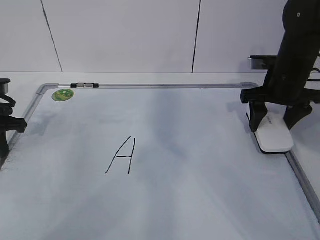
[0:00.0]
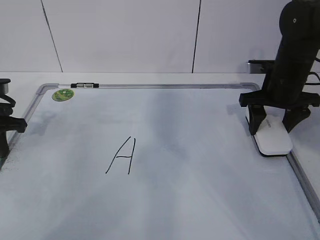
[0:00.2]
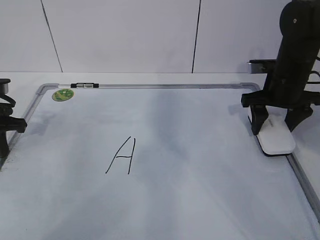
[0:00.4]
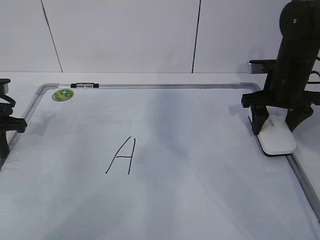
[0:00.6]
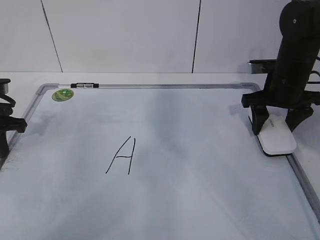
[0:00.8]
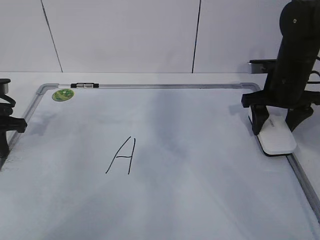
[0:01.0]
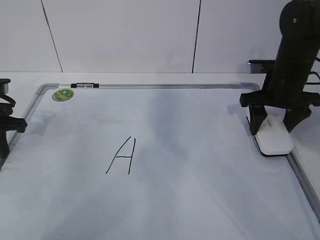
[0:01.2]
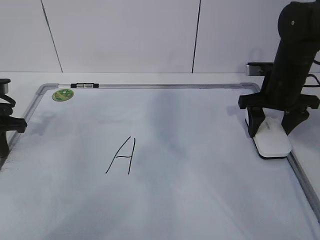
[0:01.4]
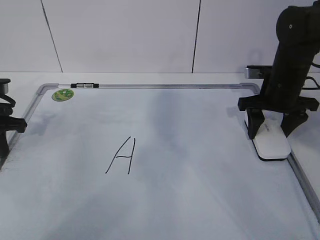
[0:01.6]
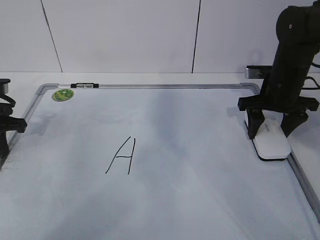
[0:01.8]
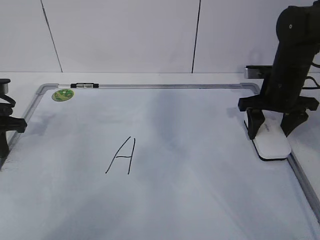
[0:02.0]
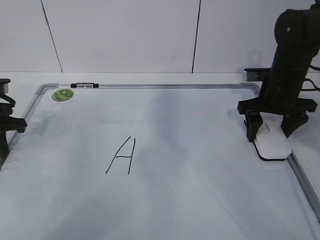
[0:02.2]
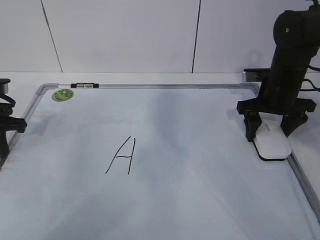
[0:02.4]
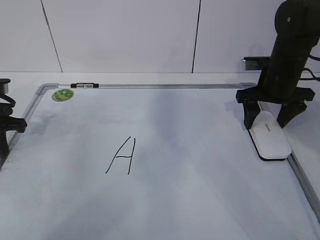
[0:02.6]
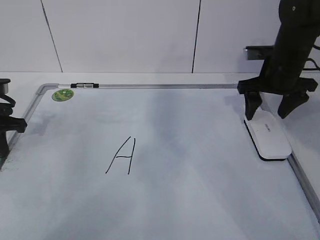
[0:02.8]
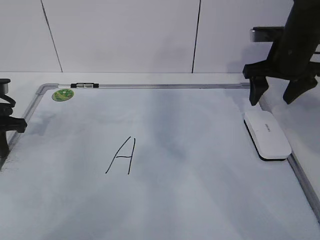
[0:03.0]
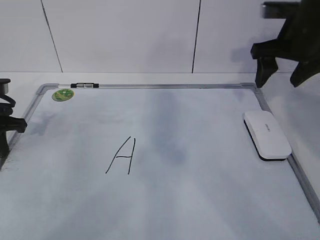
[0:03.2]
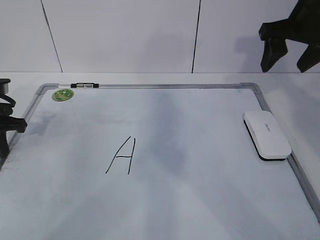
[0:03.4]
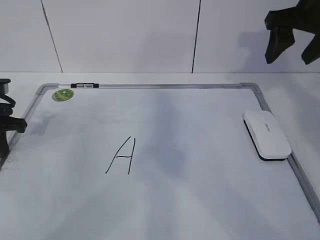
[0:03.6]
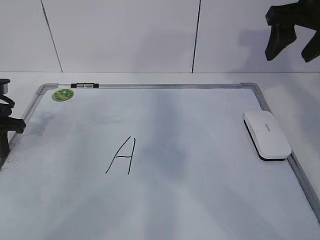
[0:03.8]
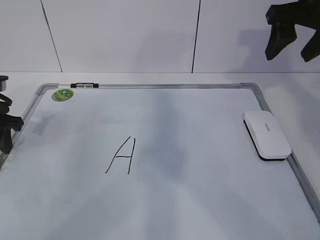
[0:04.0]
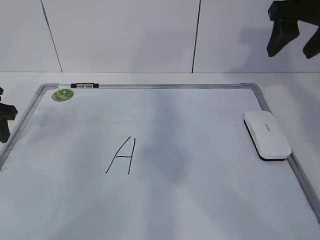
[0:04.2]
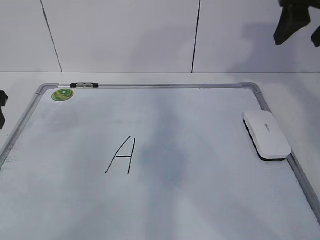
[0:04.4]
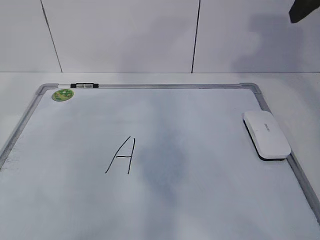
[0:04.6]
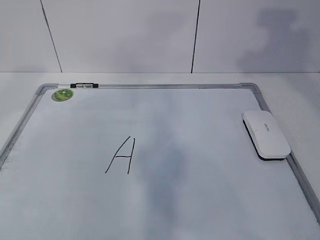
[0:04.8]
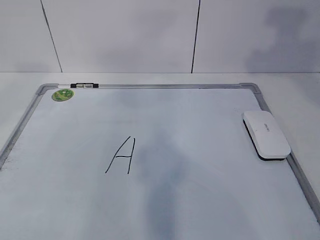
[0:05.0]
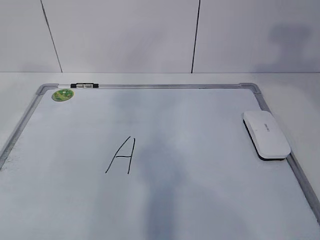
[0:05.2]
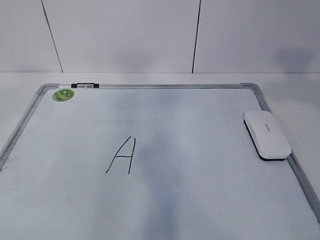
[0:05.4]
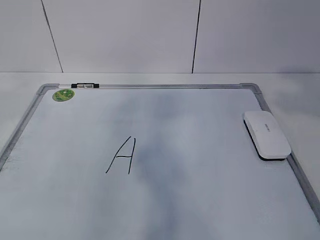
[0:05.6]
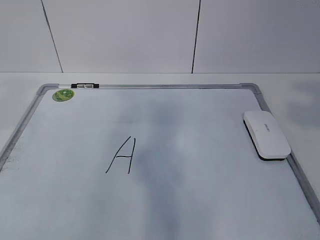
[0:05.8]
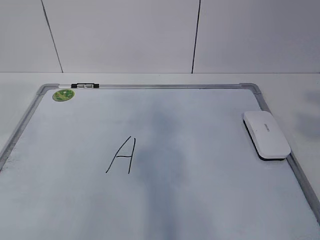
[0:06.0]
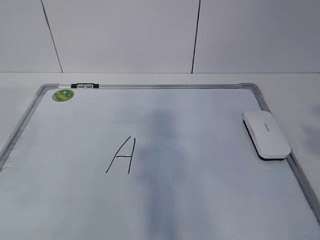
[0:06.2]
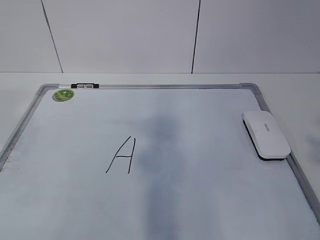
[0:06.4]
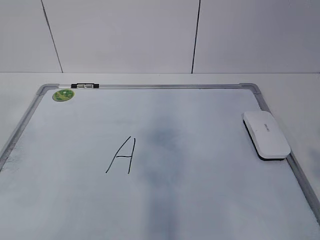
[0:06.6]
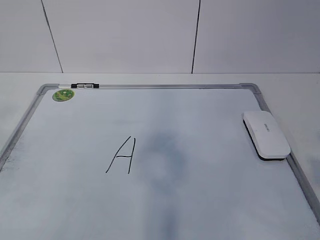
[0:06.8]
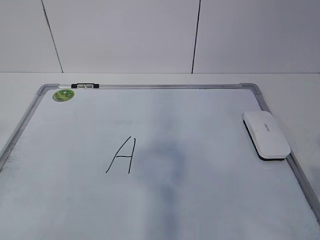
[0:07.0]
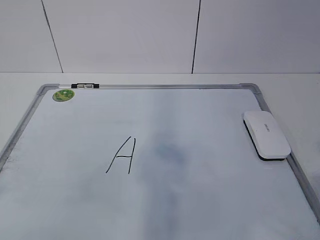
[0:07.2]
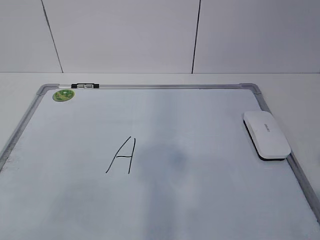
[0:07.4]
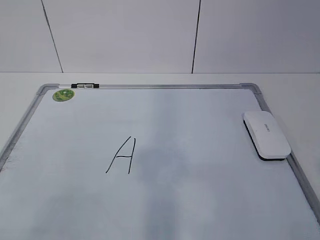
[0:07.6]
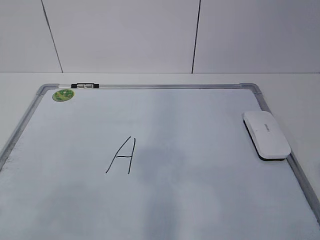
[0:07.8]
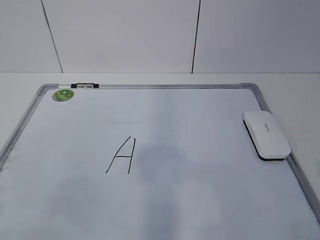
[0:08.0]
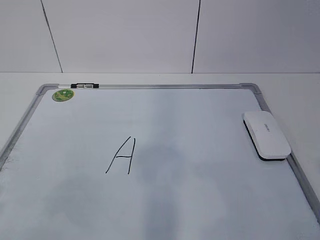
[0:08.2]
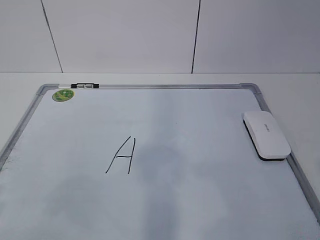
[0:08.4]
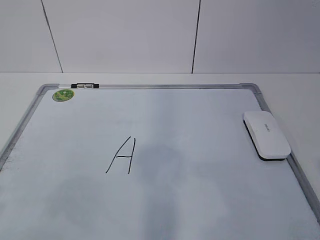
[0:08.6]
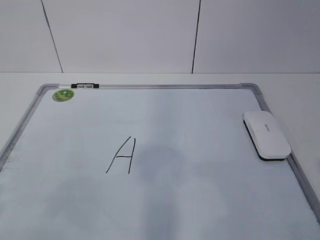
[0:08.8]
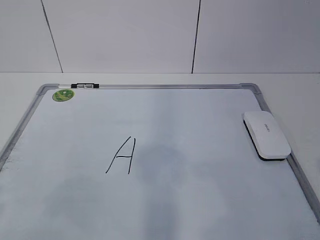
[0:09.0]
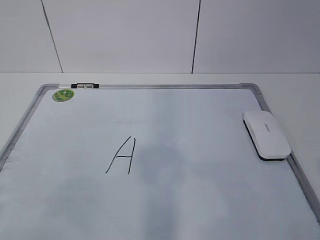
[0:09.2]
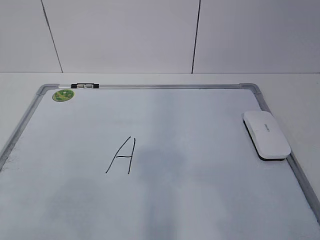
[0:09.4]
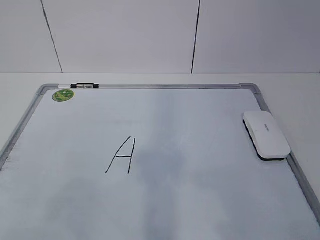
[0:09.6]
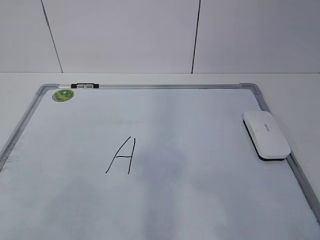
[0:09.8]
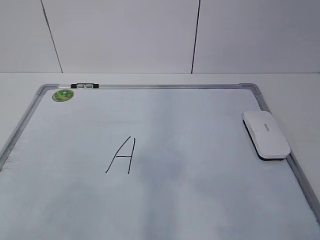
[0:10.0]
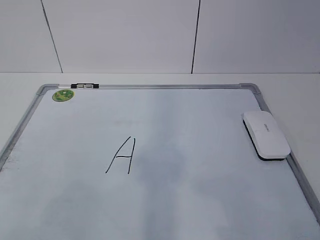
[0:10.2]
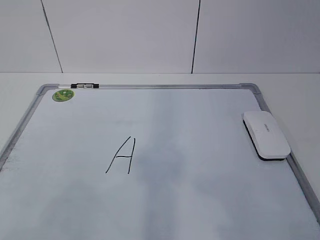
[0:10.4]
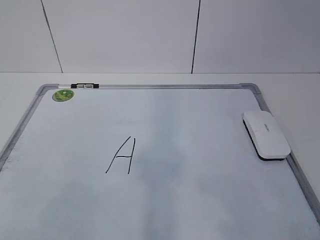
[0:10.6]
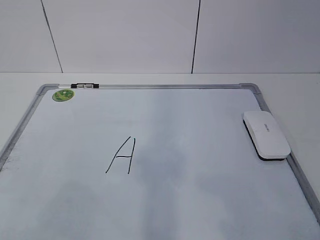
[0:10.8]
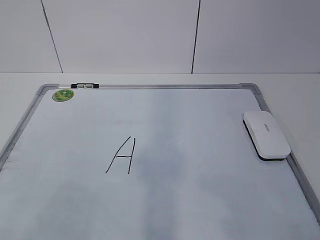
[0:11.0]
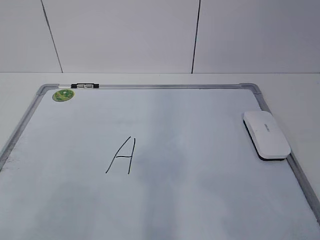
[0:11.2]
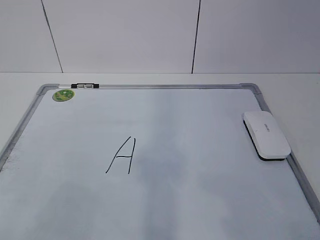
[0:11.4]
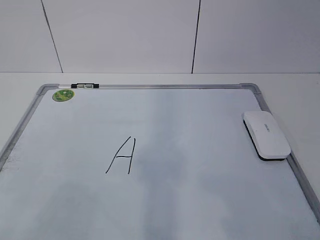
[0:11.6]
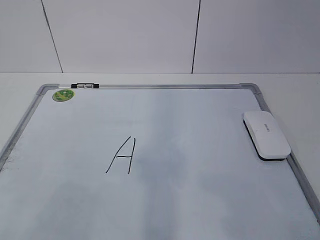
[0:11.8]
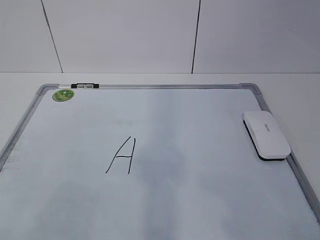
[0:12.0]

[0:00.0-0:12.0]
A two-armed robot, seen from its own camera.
Task of the whole recording: pick up the eraser on the blackboard and erase the letter "a".
0:00.0 to 0:01.6: The grippers stay close to where they were, moving slightly.
0:01.6 to 0:03.0: The right gripper heads upward, covering roughly 5 cm, and opens.
0:03.0 to 0:04.4: The left gripper moves upward, about 5 cm, and opens up. The right gripper heads upward and backward, covering about 15 cm, and closes its fingers.
0:04.4 to 0:06.0: The left gripper shifts about 30 cm backward and upward, while the right gripper is displaced backward by some 30 cm, and opens, then closes once more.
